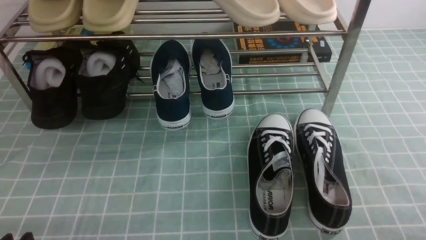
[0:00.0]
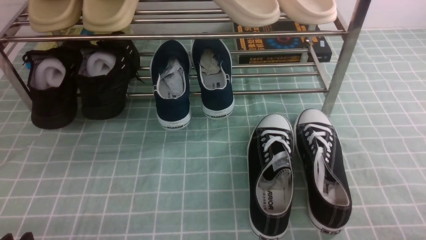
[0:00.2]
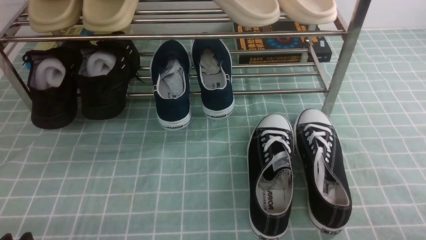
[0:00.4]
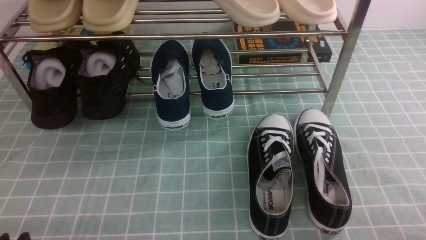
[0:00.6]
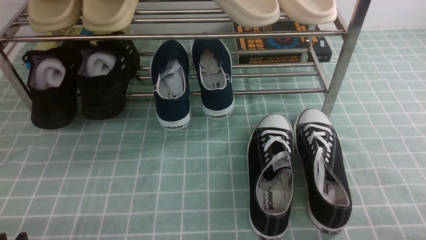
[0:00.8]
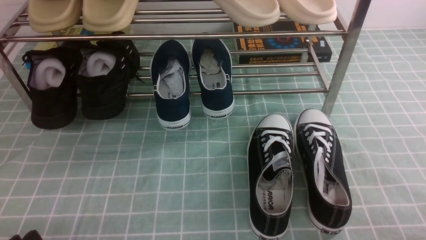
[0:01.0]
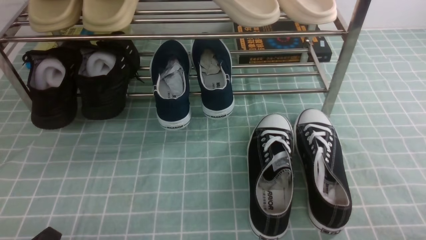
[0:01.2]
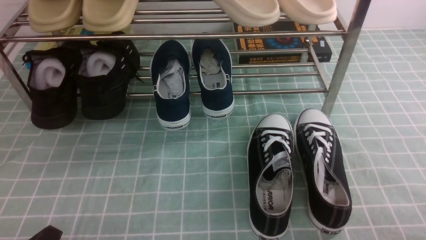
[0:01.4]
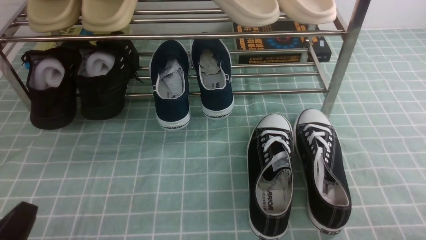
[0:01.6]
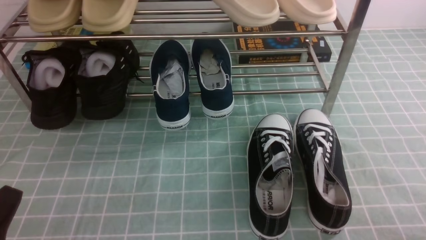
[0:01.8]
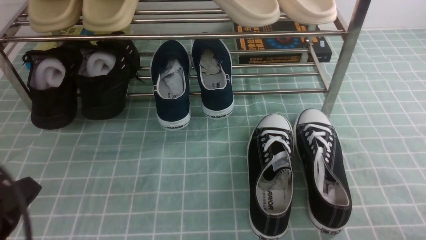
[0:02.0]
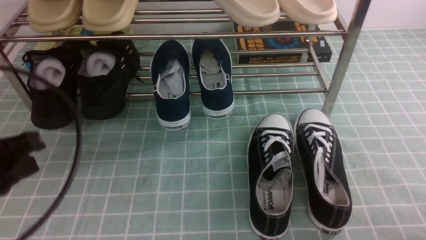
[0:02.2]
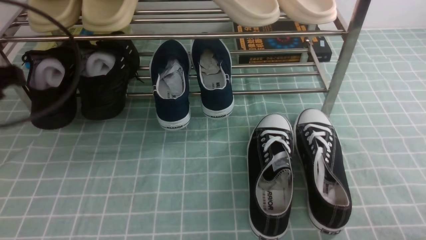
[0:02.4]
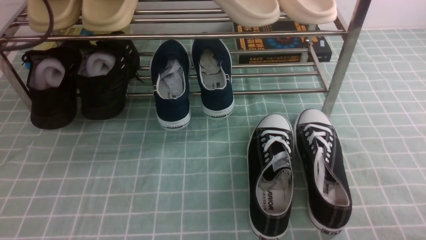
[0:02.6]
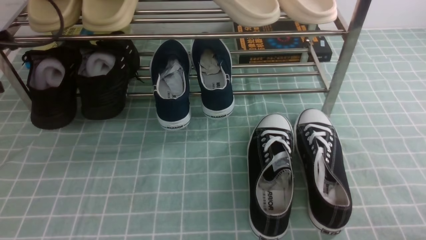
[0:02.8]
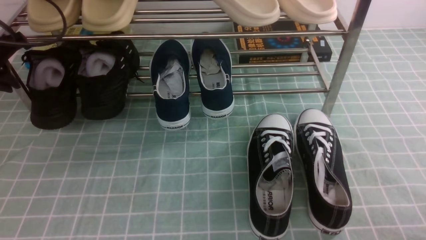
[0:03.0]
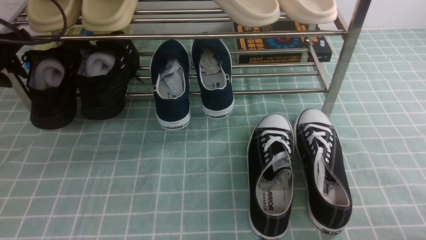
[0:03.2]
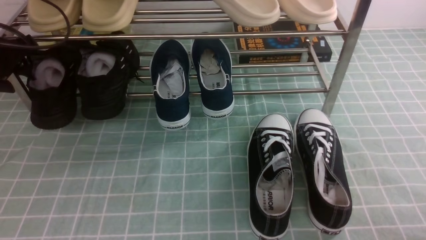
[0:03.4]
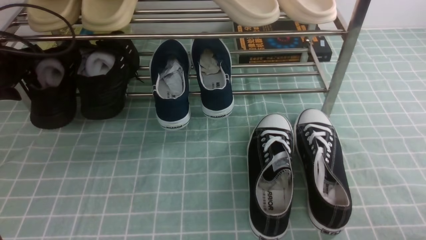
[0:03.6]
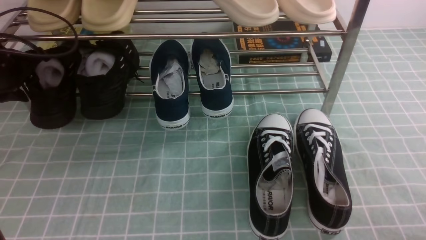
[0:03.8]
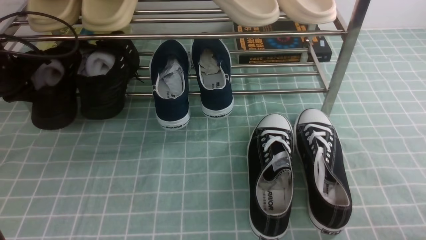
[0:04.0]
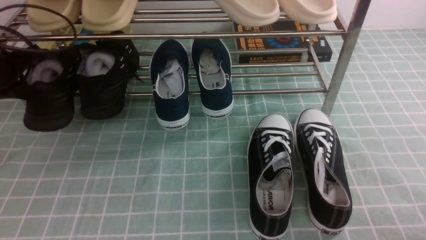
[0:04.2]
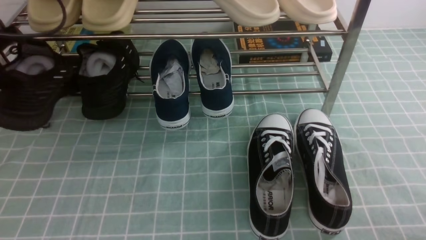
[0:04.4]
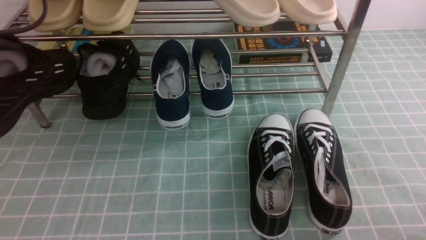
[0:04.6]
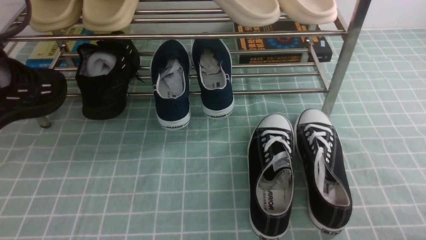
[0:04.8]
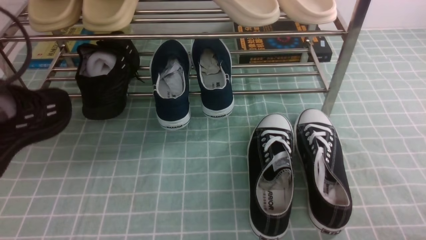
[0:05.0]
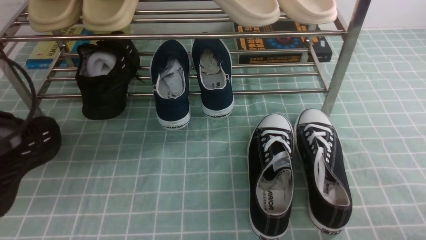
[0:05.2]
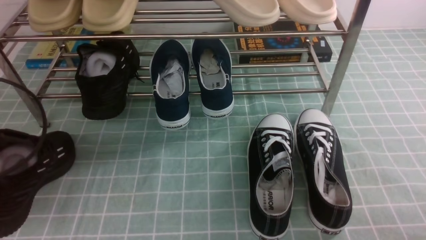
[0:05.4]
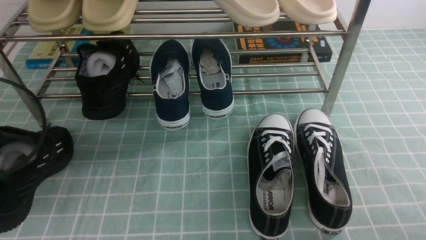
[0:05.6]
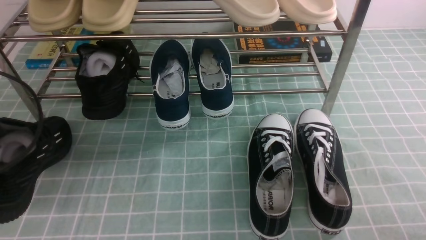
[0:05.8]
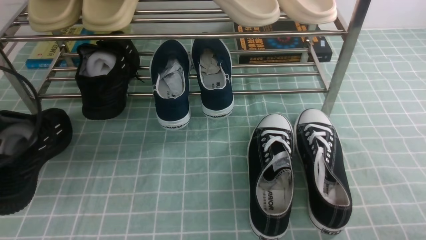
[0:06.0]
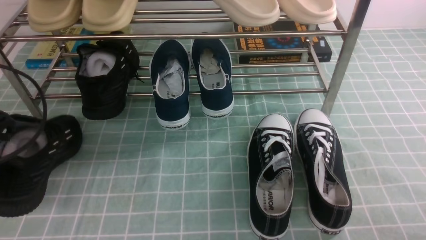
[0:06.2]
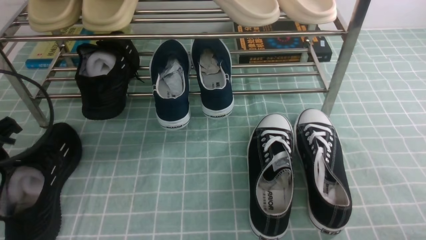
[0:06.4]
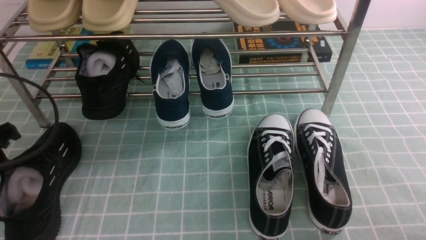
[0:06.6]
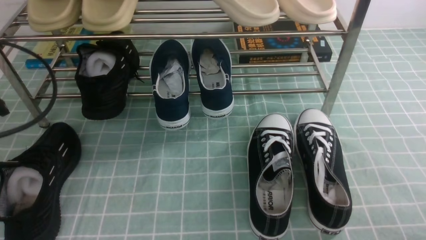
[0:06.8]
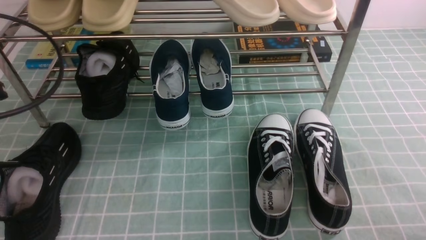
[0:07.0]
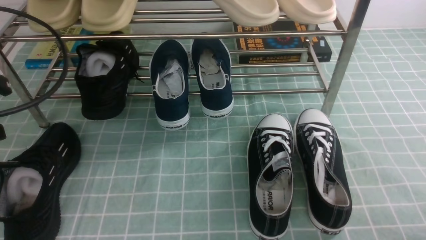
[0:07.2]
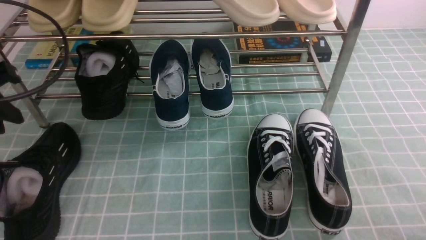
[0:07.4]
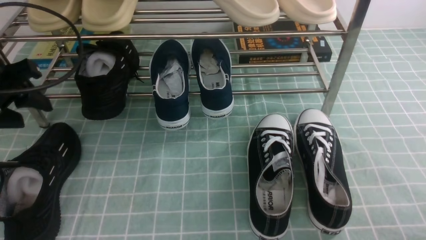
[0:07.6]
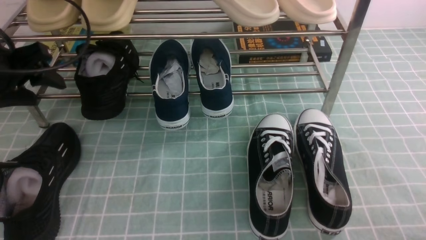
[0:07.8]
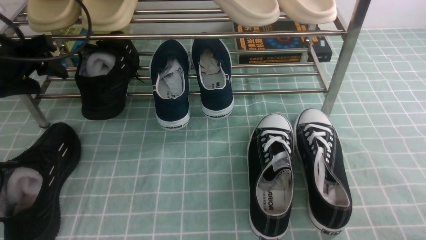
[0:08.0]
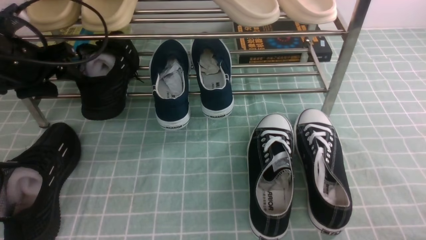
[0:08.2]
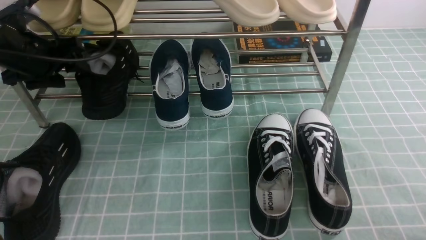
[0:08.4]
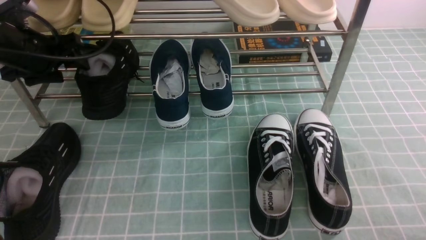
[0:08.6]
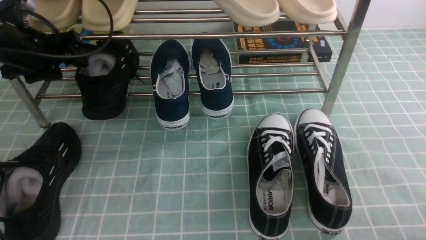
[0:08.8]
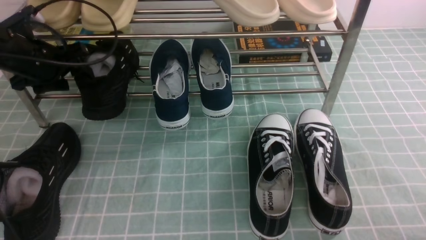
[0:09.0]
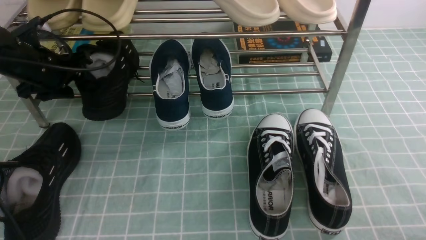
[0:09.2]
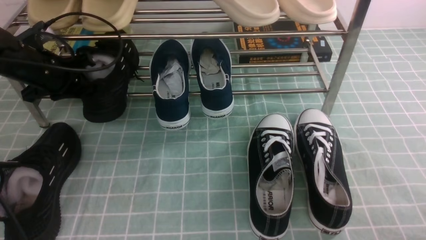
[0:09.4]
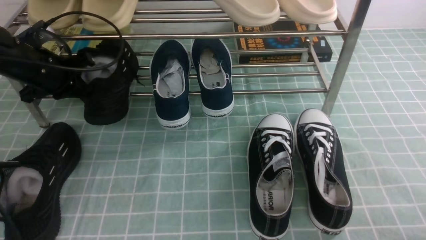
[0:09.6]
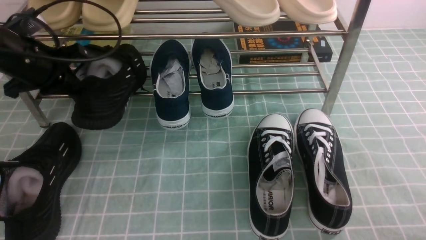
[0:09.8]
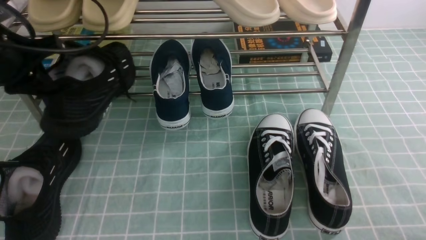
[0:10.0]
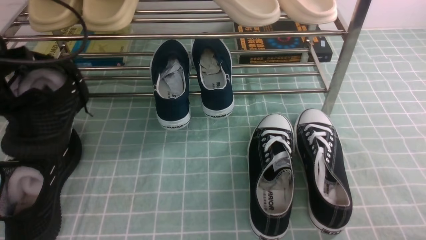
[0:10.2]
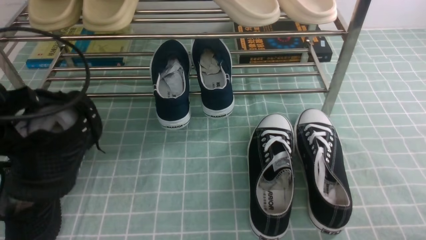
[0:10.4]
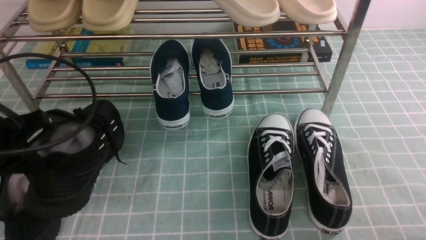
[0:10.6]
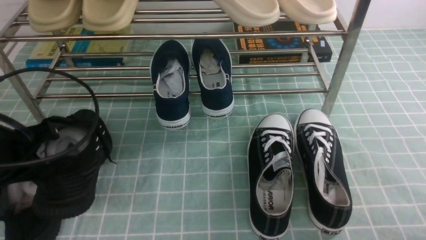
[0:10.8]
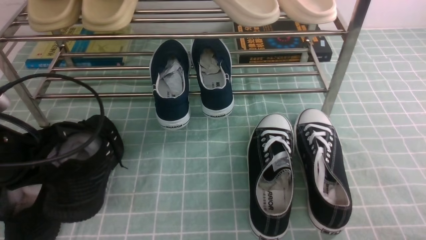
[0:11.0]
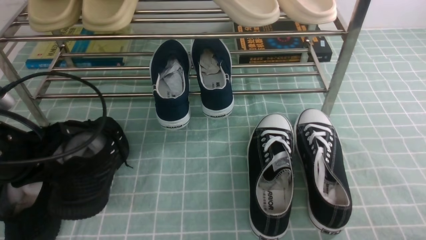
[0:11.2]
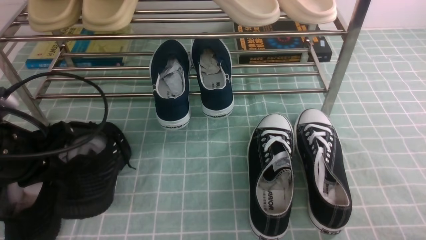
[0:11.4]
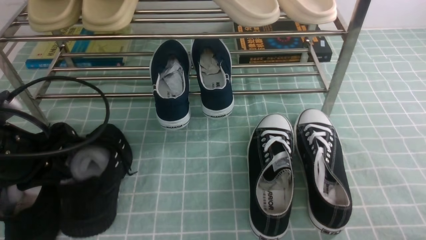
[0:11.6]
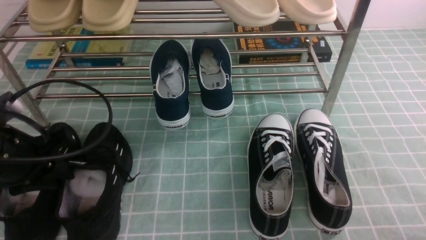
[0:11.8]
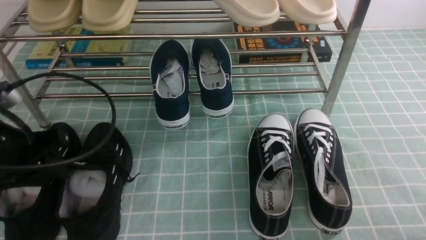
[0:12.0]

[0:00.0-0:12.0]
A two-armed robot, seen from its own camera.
Step, 0:00.0 to 0:03.8: use the left arm to clamp a shoe on the left side of the shoe rack.
Step, 0:04.0 to 0:06.6: Use your left arm to remove the clamped shoe from the shoe rack and put it down.
Step, 0:06.8 to 0:09.2: use the left arm to clamp a shoe on the left side of the shoe rack.
Step, 0:09.4 to 0:12.0: Use your left arm to remove the clamped shoe from the shoe rack and put it down.
0:01.6 to 0:03.0: The left gripper travels forward and upward by approximately 30 cm.
0:03.0 to 0:04.4: The left gripper reaches about 5 cm downward, then returns, and opens and closes again.
0:04.4 to 0:06.0: The left gripper heads backward and downward, covering some 15 cm.
0:06.0 to 0:07.6: The left gripper is displaced forward and upward by about 10 cm, and opens.
0:07.6 to 0:09.0: The left gripper heads forward and downward, covering some 15 cm.
0:09.0 to 0:10.4: The left gripper shifts roughly 15 cm backward, and closes.
0:10.4 to 0:12.0: The left gripper opens.

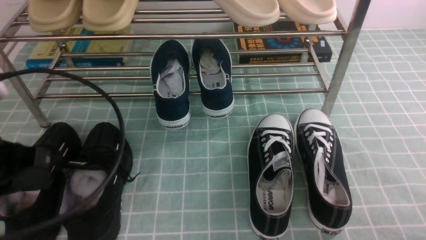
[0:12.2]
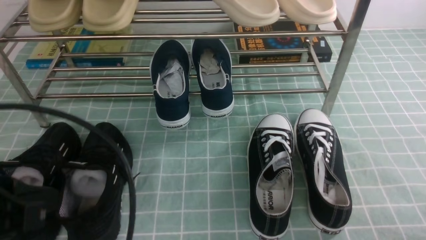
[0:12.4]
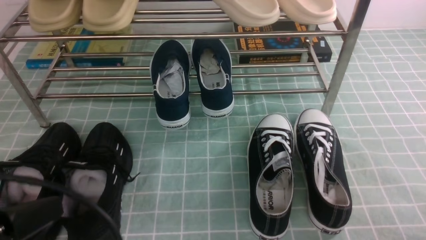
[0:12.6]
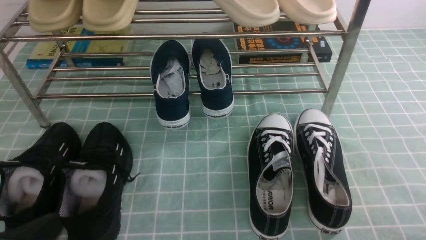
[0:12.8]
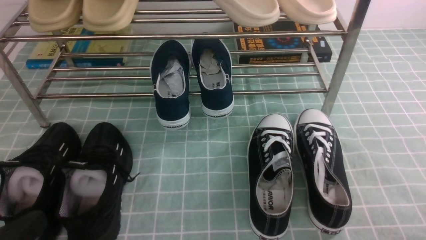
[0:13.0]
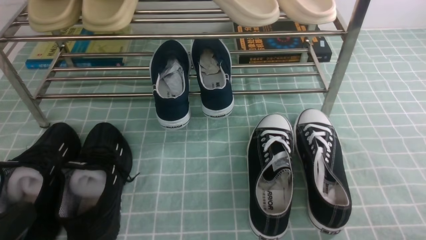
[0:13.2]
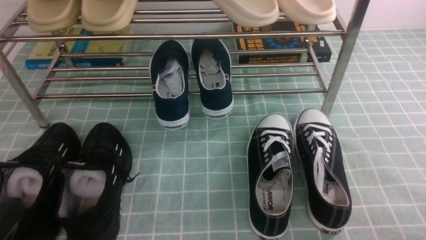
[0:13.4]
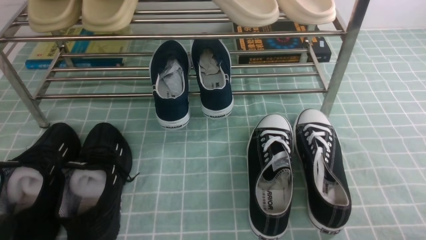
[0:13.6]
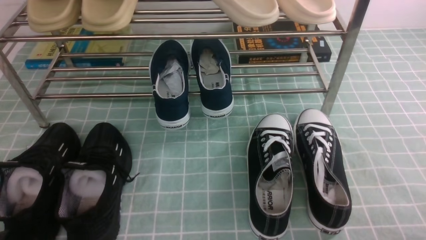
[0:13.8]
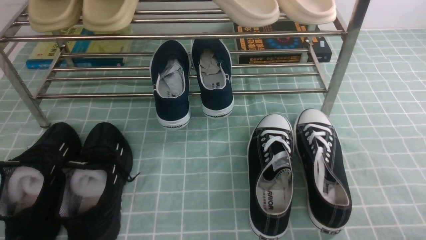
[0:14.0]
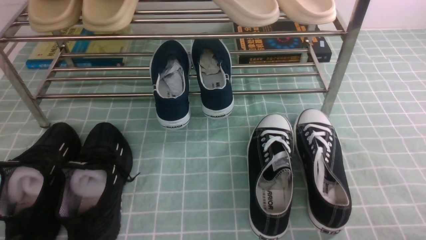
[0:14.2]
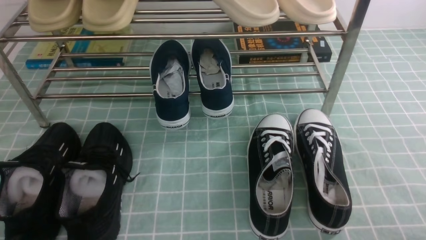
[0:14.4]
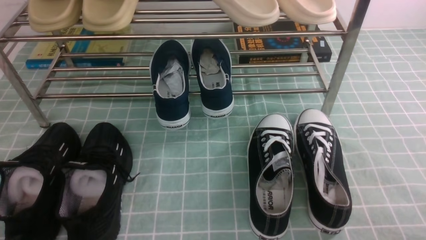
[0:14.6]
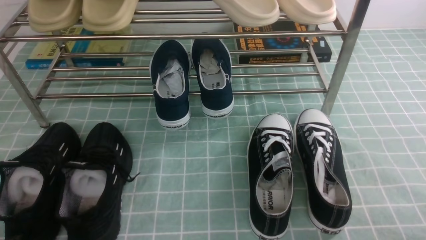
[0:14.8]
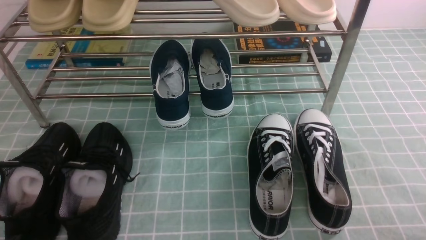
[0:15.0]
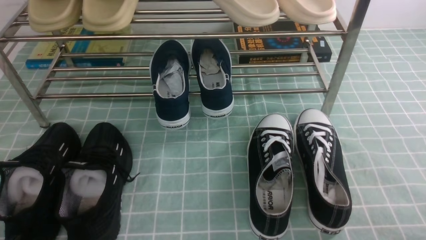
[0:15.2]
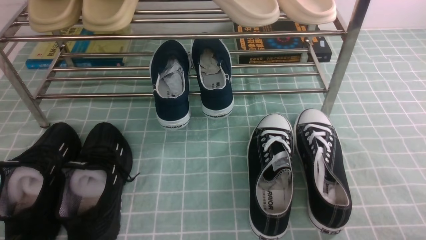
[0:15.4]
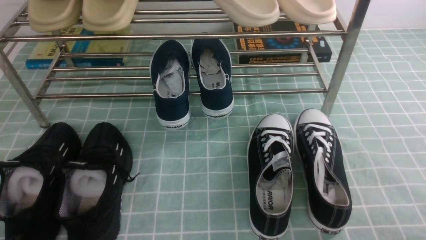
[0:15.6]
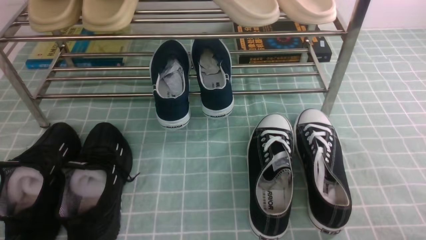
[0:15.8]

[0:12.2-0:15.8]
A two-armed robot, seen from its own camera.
0:12.2 to 0:14.0: The left gripper moves downward and backward, about 20 cm.
0:14.0 to 0:15.8: Both grippers stay put.

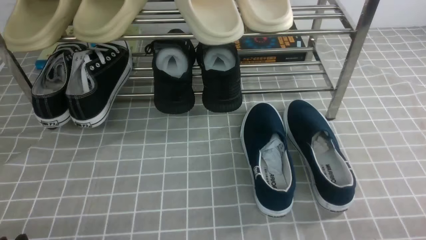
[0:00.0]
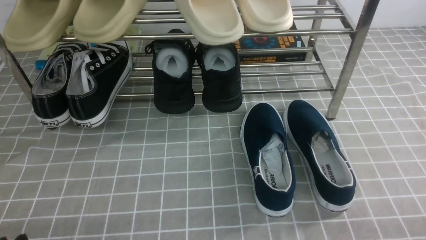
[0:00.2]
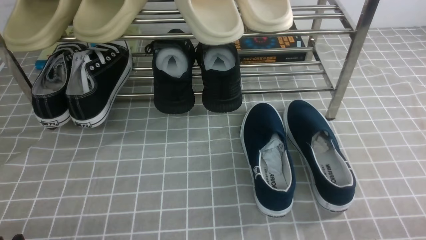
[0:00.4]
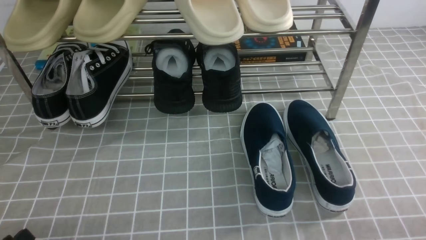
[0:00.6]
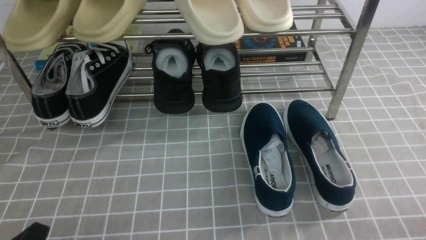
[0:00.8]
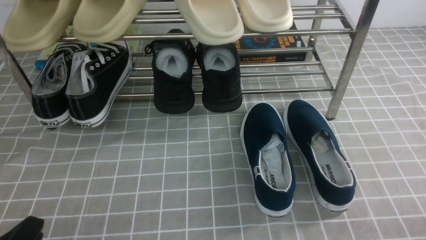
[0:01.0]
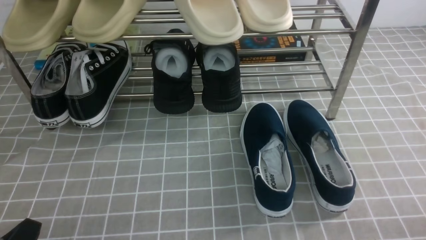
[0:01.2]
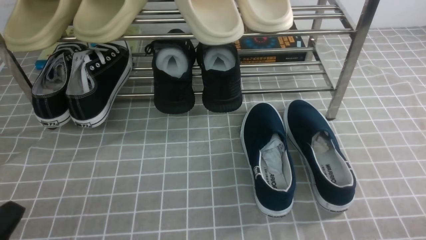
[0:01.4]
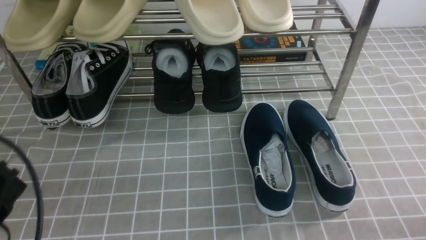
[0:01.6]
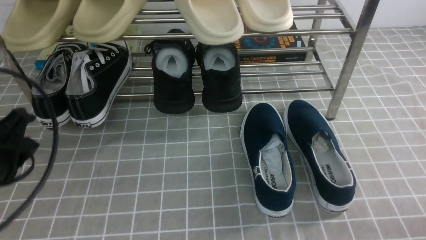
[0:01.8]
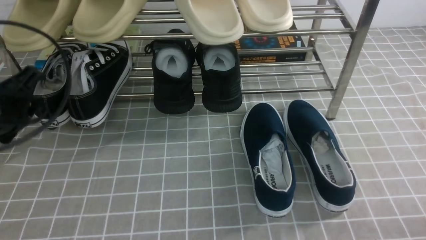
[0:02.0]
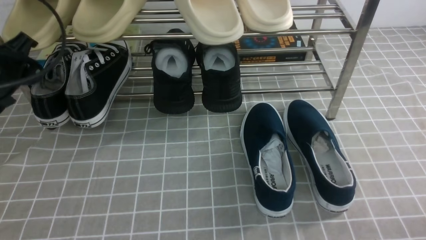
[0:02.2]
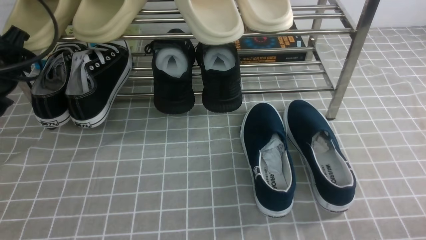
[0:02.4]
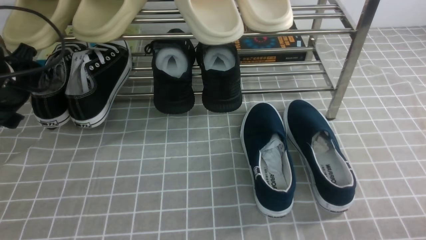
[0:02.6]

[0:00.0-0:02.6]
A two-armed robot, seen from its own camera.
0:01.2 to 0:02.6: The left gripper goes roughly 25 cm forward, and opens up.
